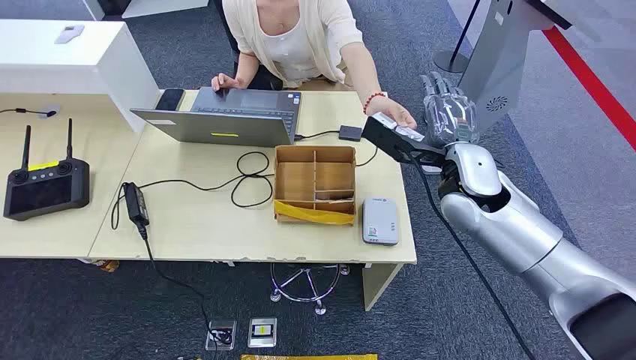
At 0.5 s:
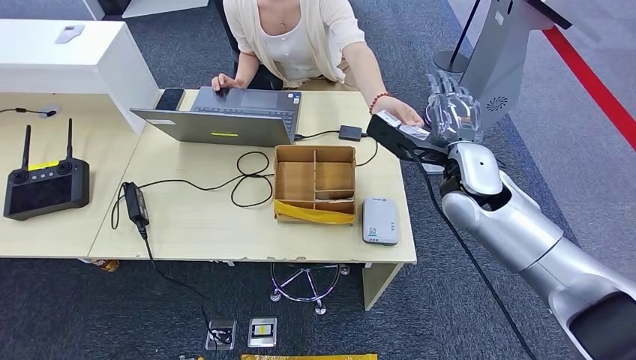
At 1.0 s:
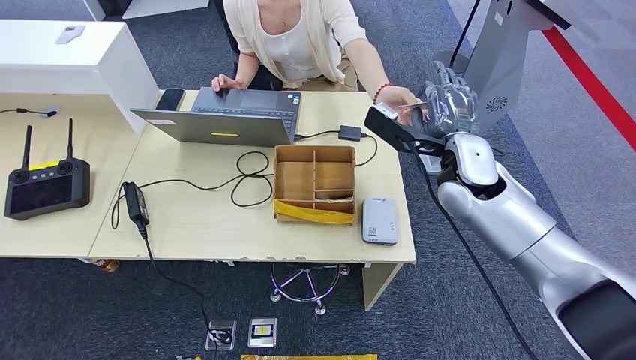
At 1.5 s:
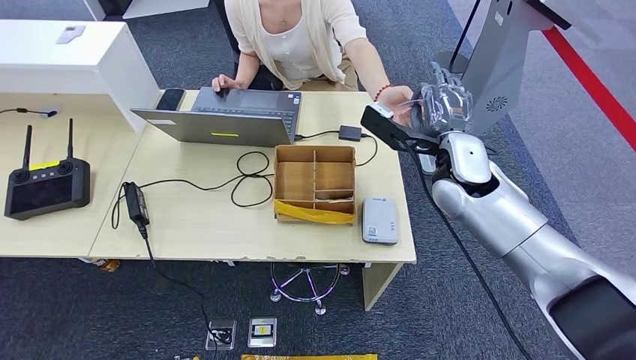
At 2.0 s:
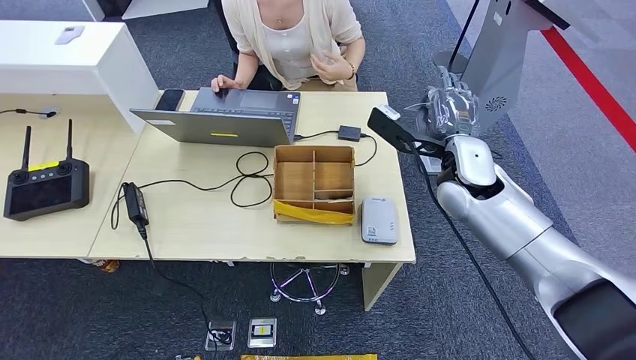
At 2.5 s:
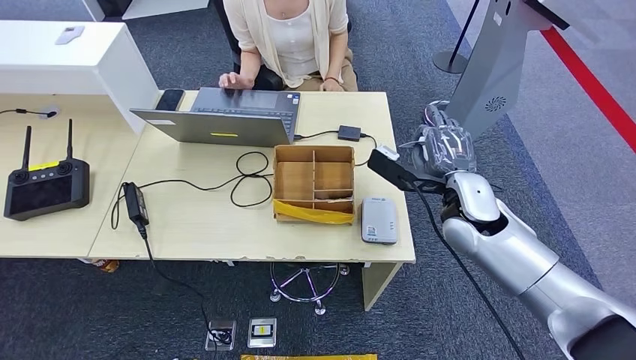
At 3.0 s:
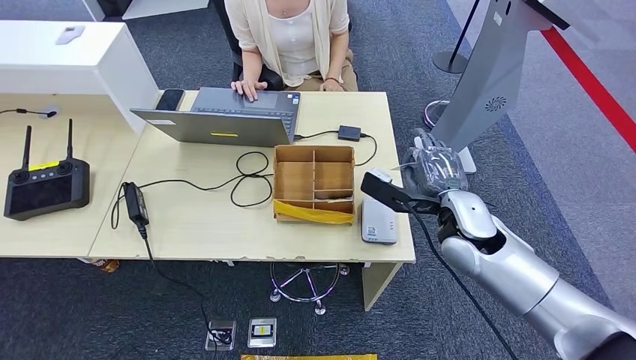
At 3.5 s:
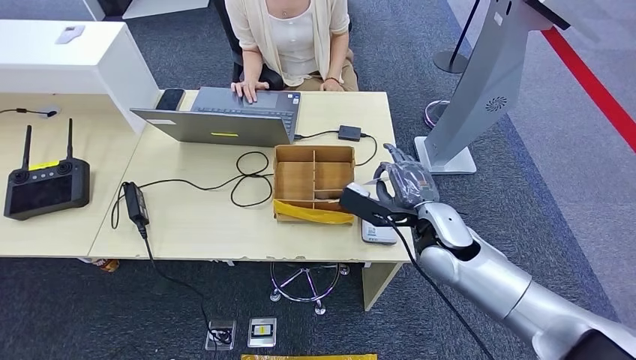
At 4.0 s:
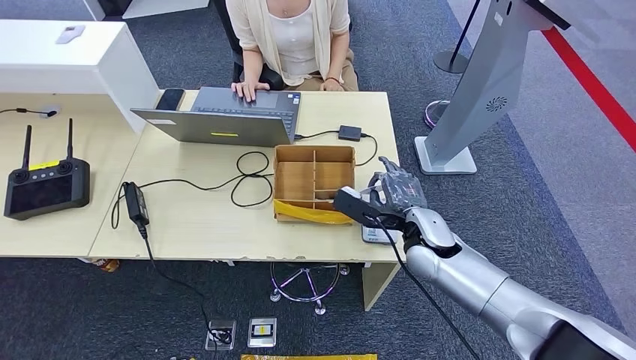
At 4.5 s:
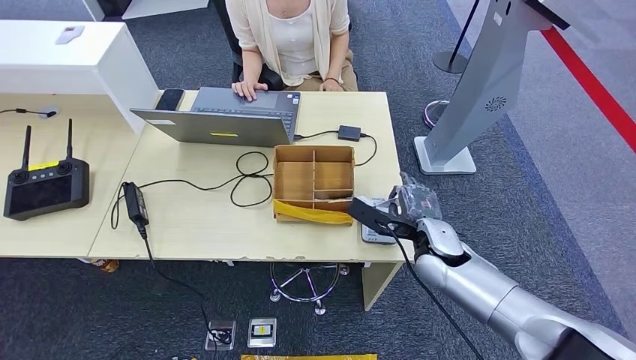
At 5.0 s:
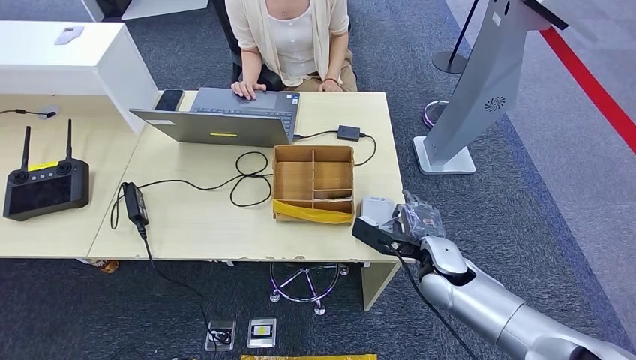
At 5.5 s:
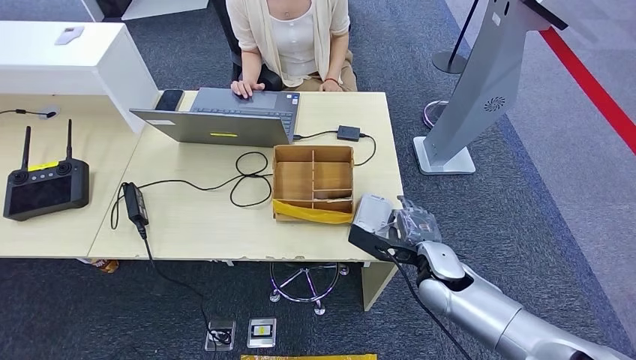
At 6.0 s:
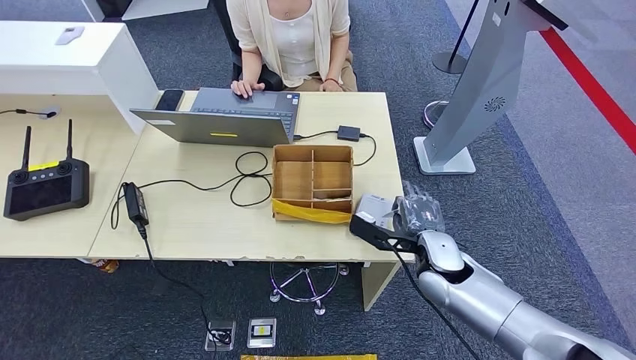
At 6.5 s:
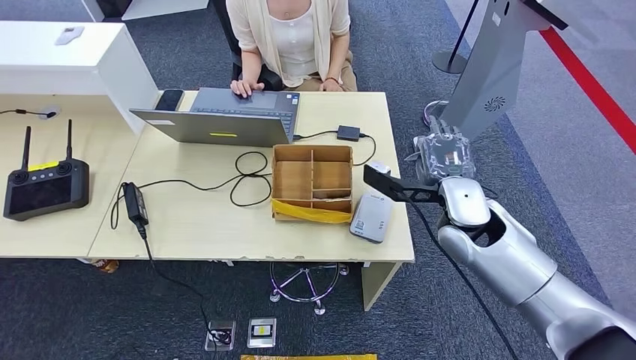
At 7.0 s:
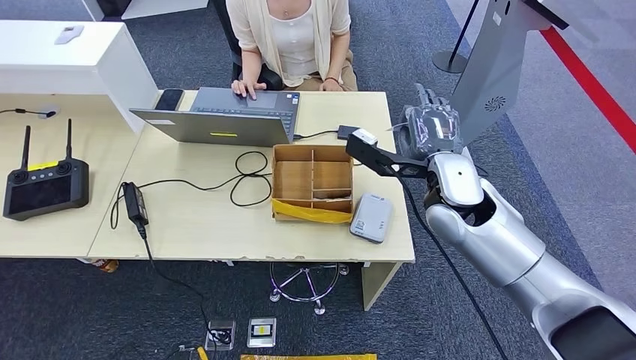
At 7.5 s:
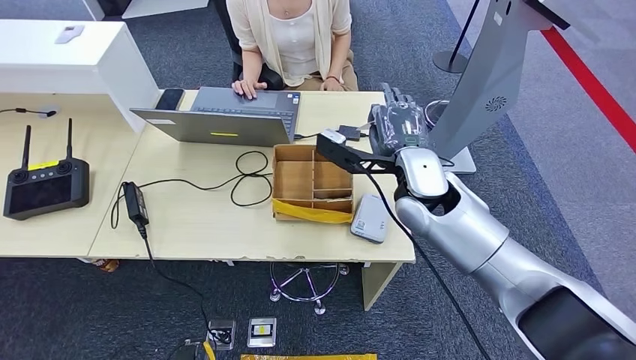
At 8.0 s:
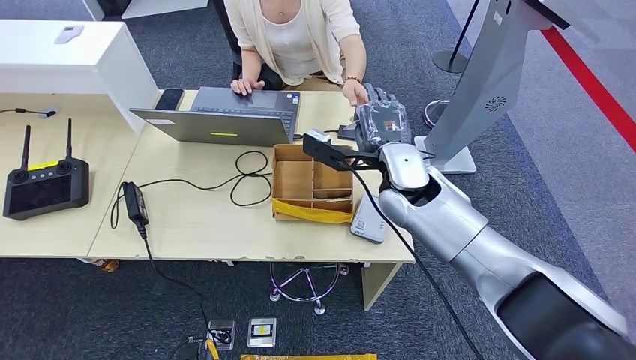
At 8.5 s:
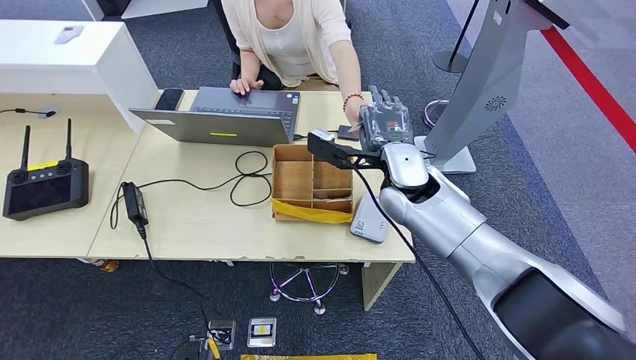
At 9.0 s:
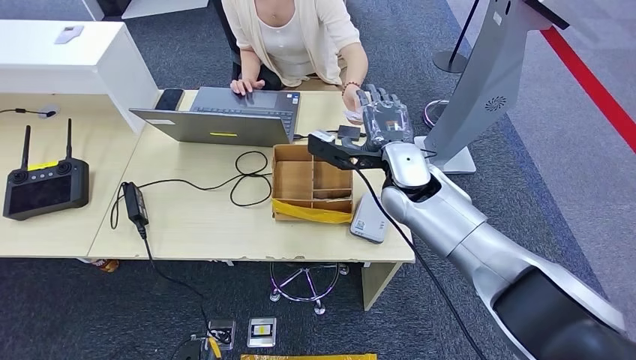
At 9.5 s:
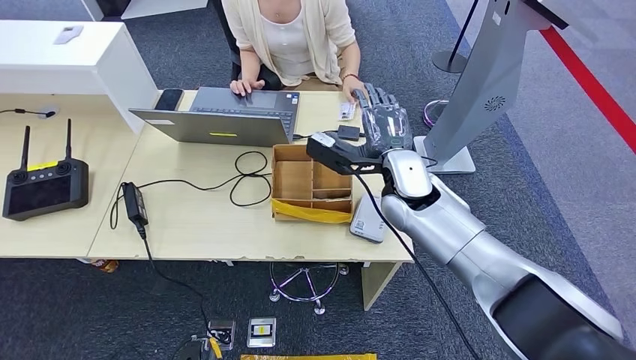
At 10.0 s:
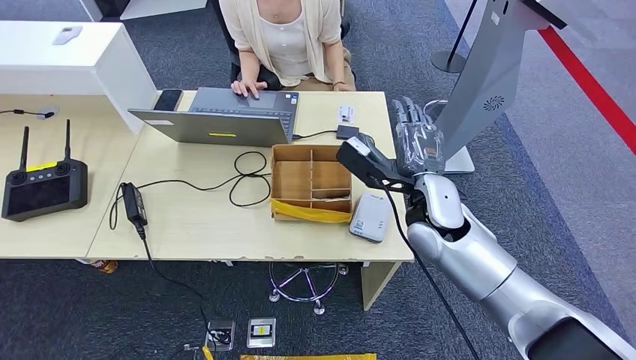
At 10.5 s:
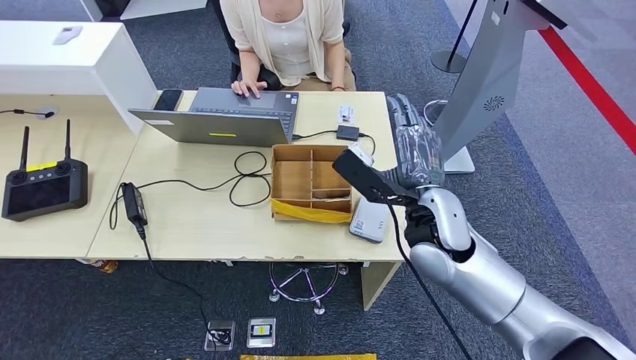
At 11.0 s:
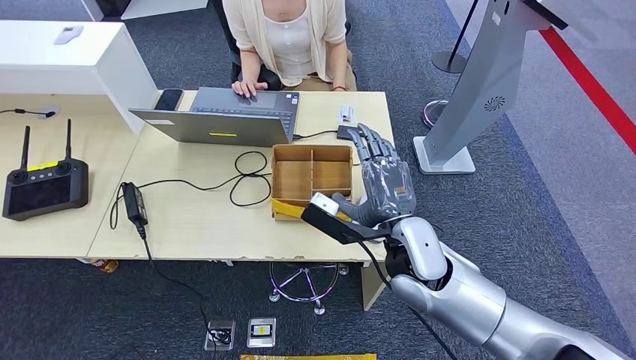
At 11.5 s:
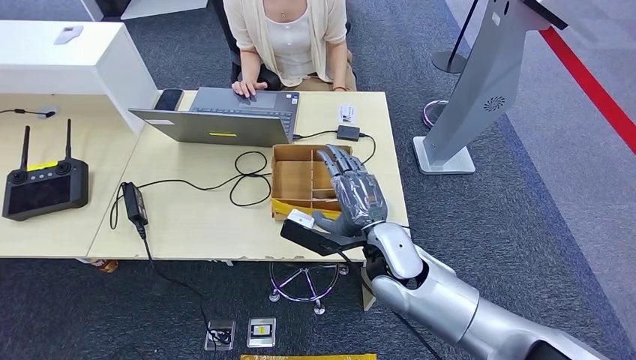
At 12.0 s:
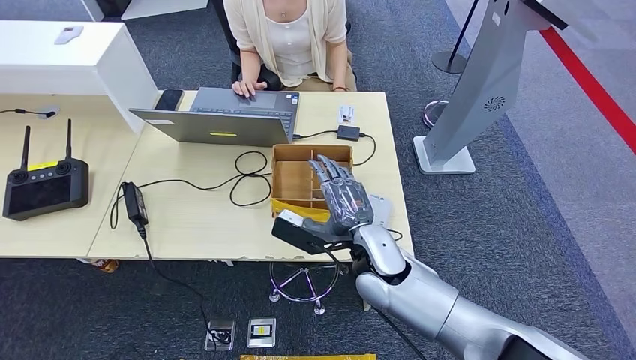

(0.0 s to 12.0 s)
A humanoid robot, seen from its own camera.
Step, 0.0 s - 2.5 s: Take the ID card from the person's hand.
Step, 3.0 s - 6.5 s: Place the ID card on the card reader.
Step, 7.0 s - 9.0 s: Hand the ID card to the person.
2.0 s - 4.0 s: The right hand heads downward and backward, covering some 15 cm.
4.0 s - 6.0 s: The right hand moves approximately 5 cm.
6.0 s - 8.0 s: The right hand is displaced upward, to the left and forward by roughly 20 cm, while the left hand shifts by approximately 5 cm.
8.0 s - 10.0 s: The right hand changes place by about 5 cm.
10.0 s - 12.0 s: The right hand travels to the left, downward and backward by some 10 cm.

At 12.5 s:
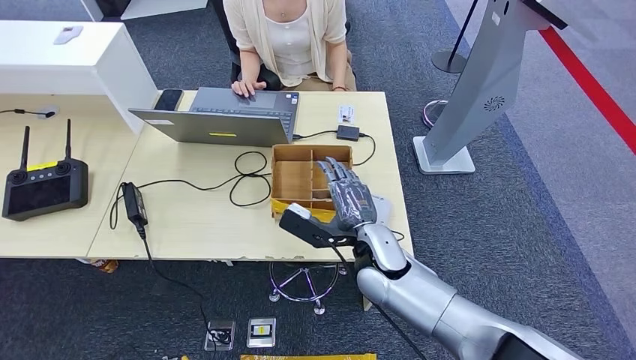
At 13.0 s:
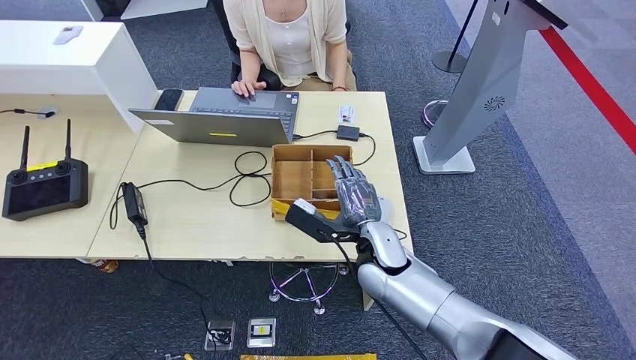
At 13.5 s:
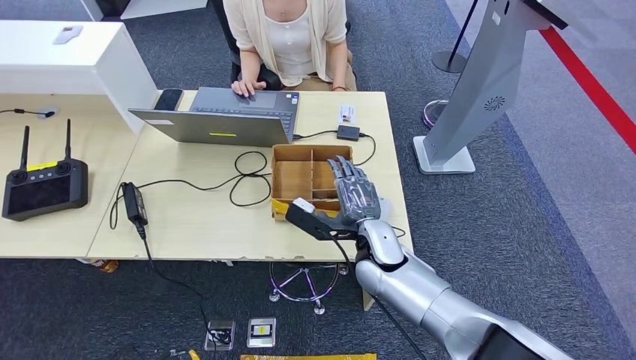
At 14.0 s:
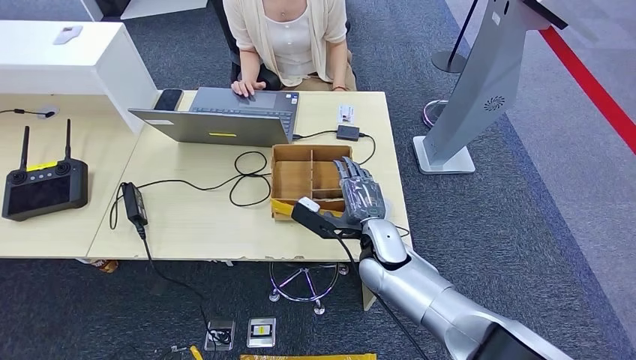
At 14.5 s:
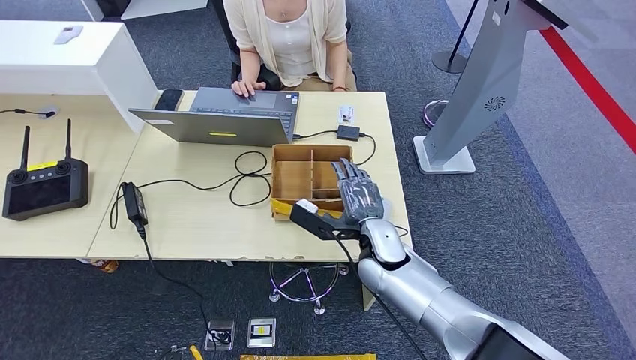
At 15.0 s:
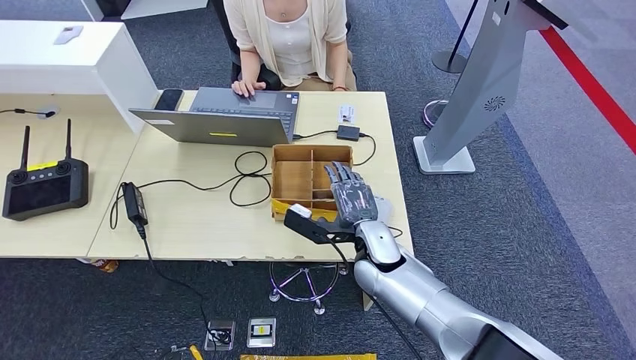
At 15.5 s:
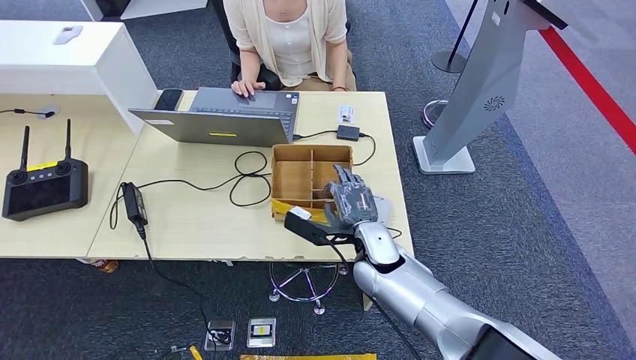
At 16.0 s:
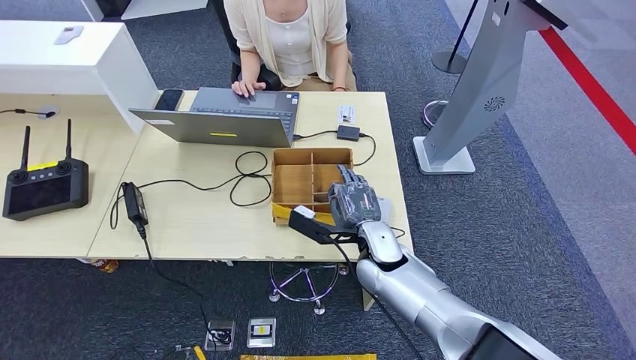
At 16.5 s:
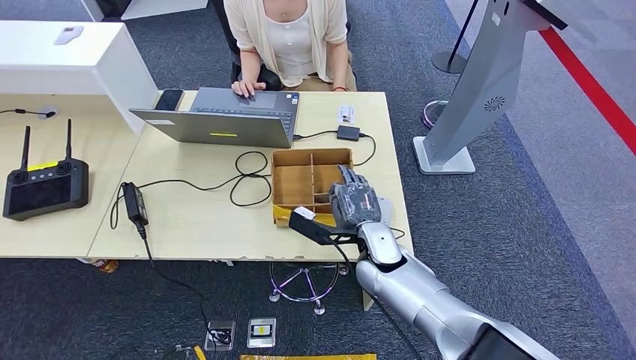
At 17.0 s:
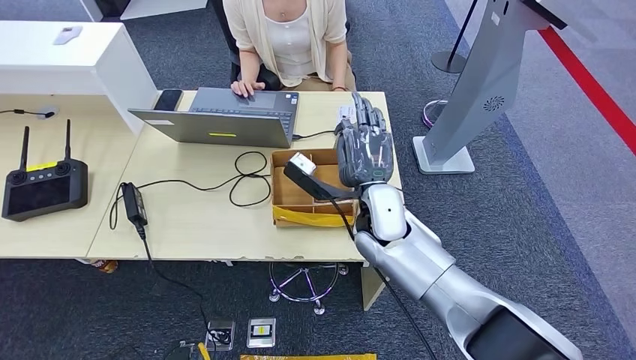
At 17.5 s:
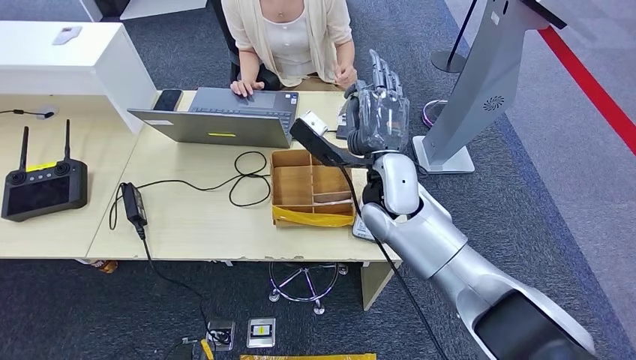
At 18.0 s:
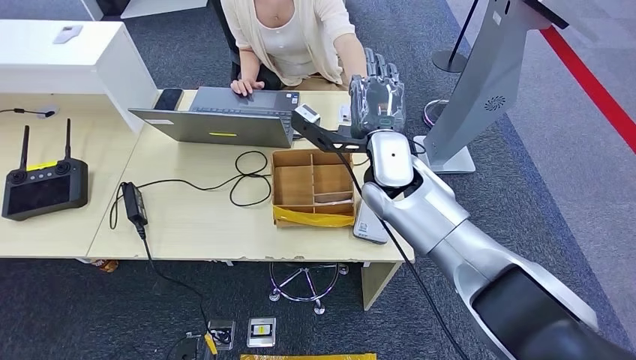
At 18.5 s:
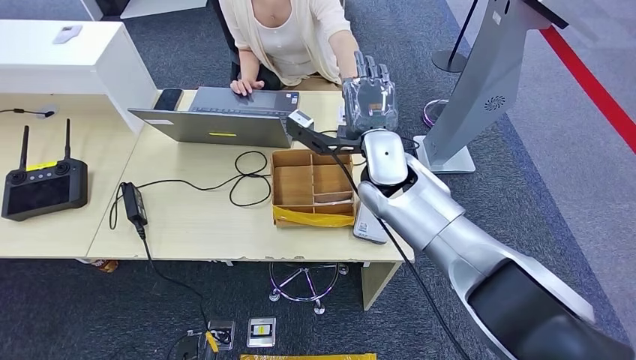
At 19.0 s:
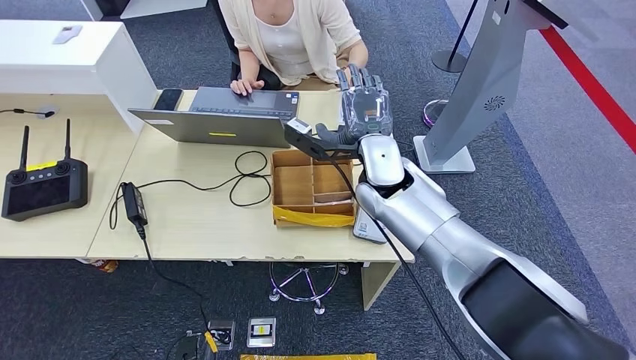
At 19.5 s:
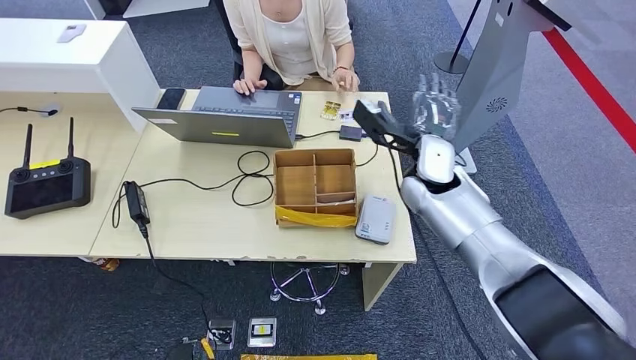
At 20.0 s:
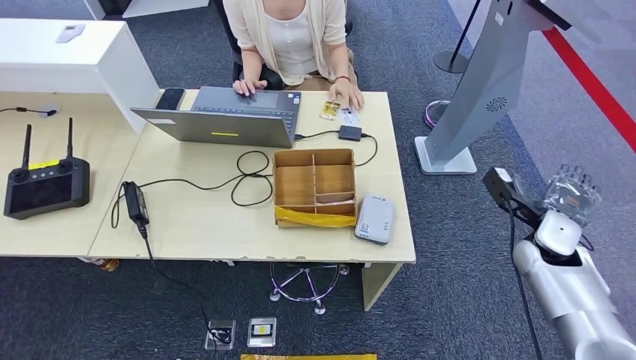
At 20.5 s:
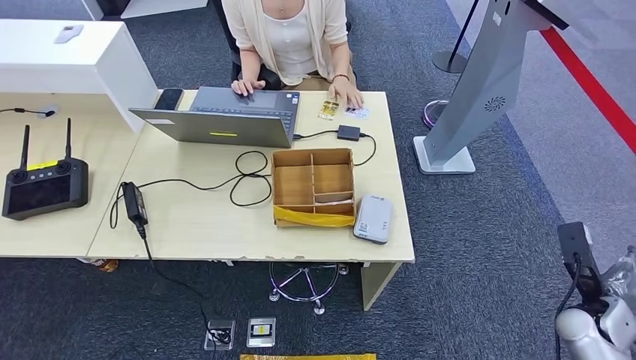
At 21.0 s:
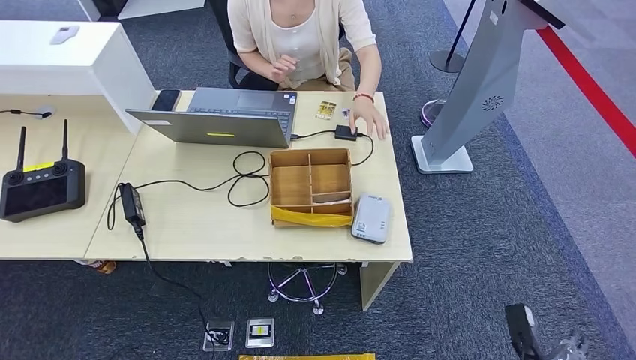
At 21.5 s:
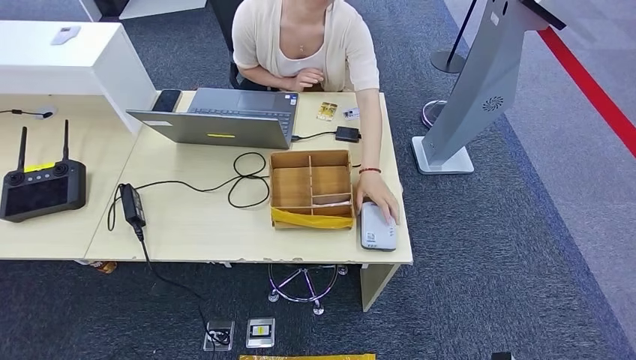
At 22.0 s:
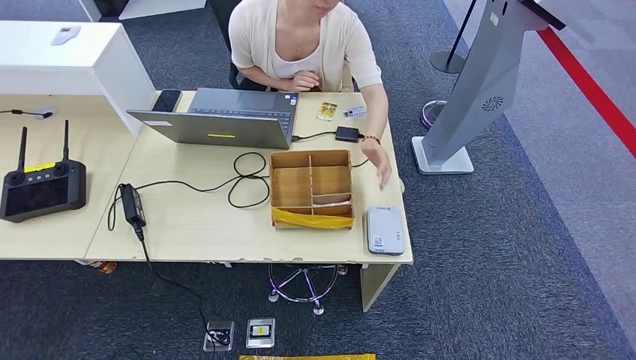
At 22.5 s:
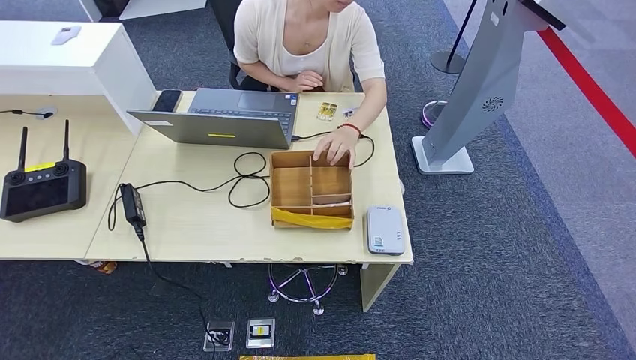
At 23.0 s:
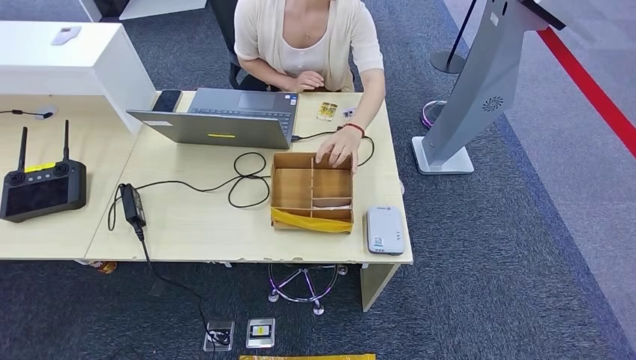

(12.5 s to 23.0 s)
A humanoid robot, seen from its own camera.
Step, 12.5 s - 17.0 s: Pick up the room key from the key card box.
12.5 s - 16.5 s: The hands move only a little.
16.5 s - 19.0 s: The right hand heads upward and forward, covering about 15 cm.
19.0 s - 21.0 s: The right hand heads backward, downward and to the right, covering approximately 50 cm. Meanwhile the left hand is displaced backward by approximately 10 cm.
21.0 s - 23.0 s: The right hand moves to the left, backward and downward, some 15 cm.
